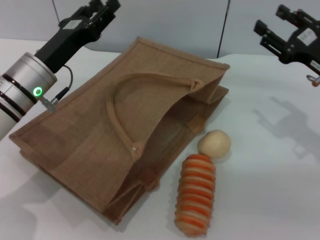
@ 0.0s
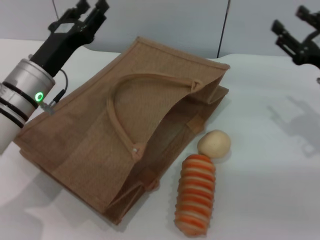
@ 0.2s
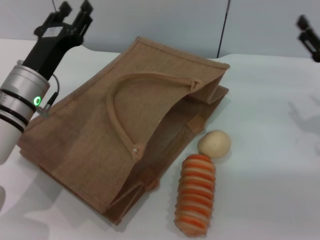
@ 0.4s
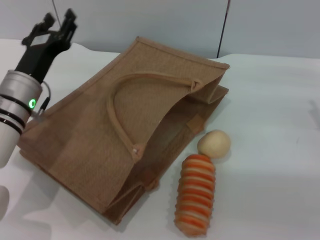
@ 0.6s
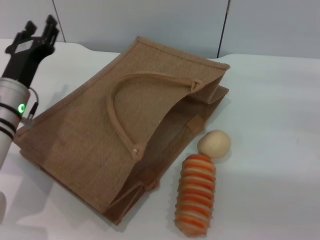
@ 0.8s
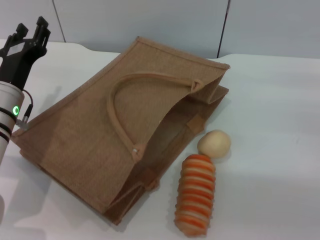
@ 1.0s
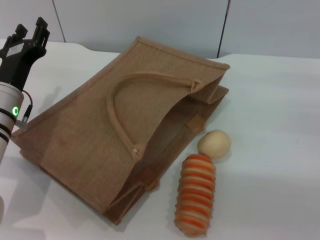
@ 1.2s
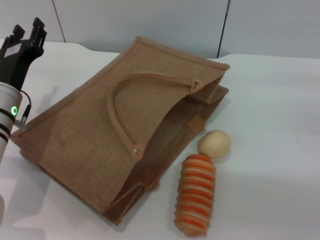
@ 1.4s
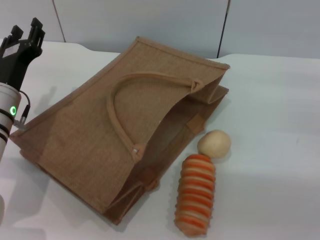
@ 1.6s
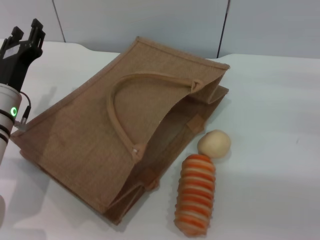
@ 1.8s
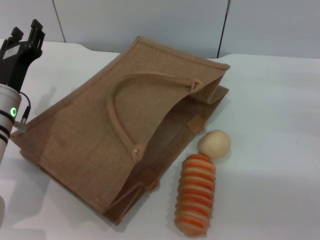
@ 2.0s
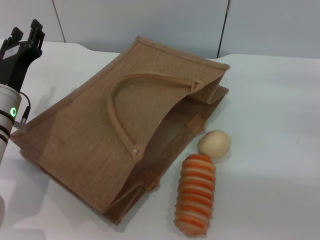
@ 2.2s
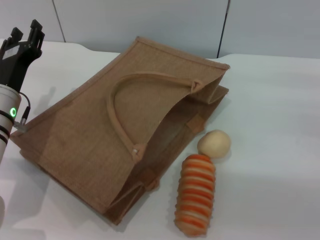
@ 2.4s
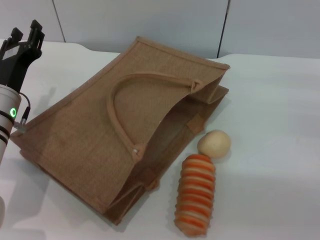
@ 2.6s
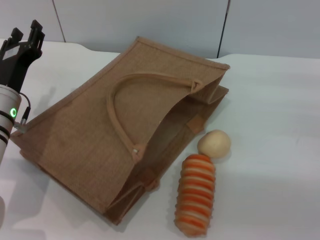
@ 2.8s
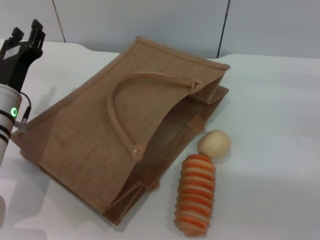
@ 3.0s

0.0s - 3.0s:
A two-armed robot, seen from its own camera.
Task of the whole recording: pick up the orange and peach from the table and place it in the brown handbag.
0.0s - 1.6s: The left gripper shifts by some 5 cm. Meanwhile the right gripper heads to the right, covering approximately 5 cm.
1.6s - 3.0s: Both grippers stay put.

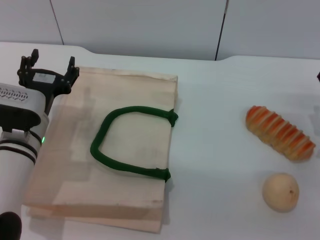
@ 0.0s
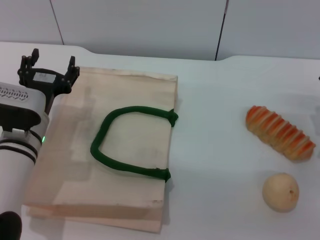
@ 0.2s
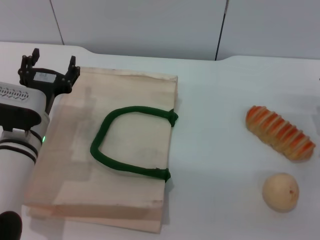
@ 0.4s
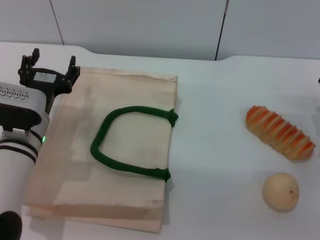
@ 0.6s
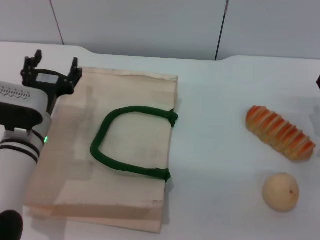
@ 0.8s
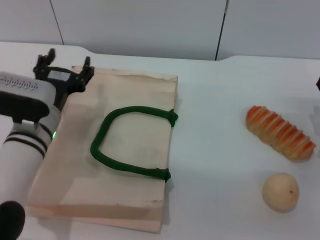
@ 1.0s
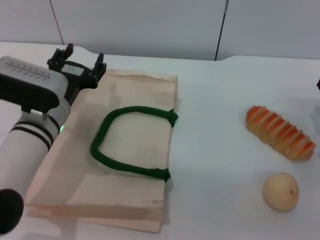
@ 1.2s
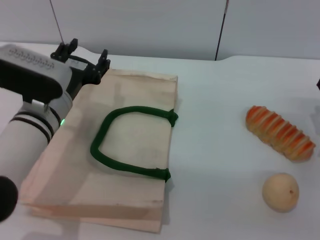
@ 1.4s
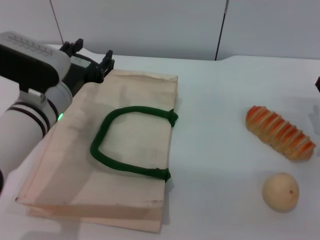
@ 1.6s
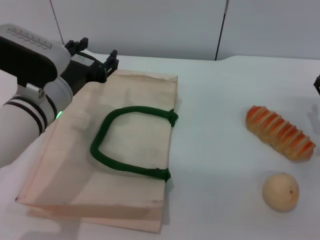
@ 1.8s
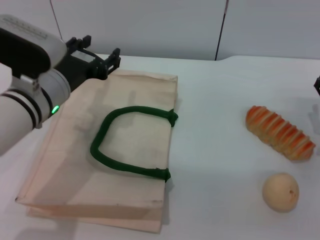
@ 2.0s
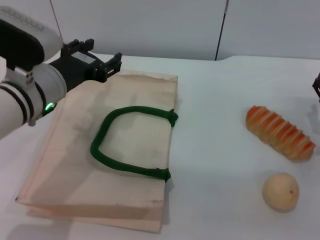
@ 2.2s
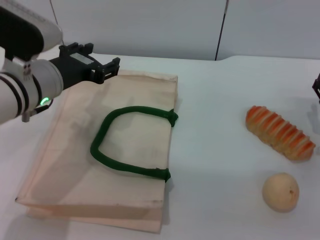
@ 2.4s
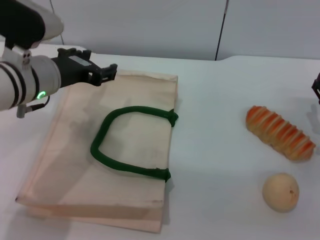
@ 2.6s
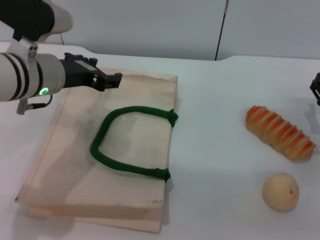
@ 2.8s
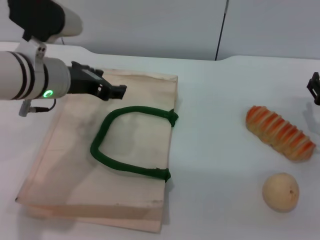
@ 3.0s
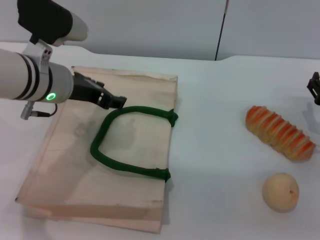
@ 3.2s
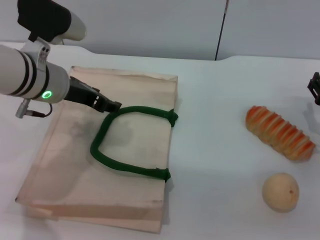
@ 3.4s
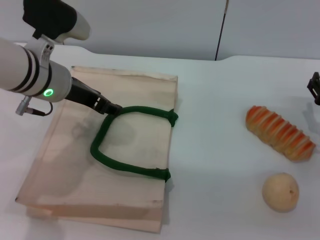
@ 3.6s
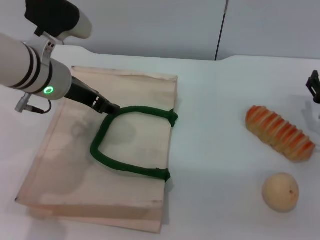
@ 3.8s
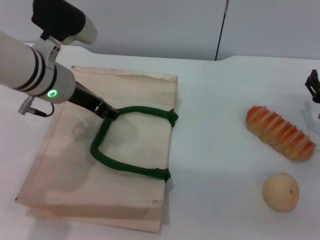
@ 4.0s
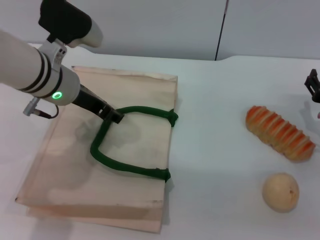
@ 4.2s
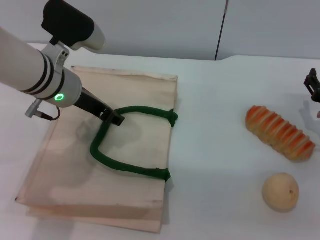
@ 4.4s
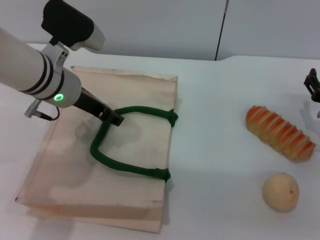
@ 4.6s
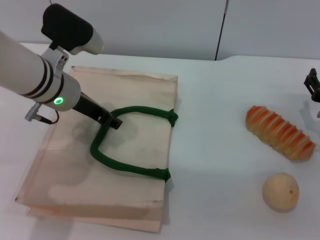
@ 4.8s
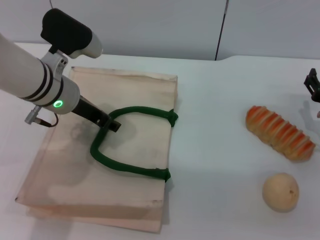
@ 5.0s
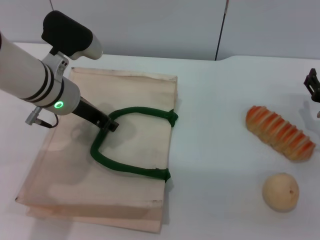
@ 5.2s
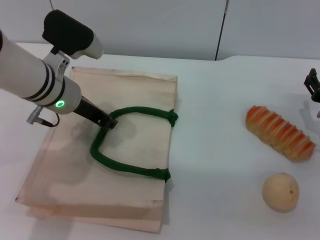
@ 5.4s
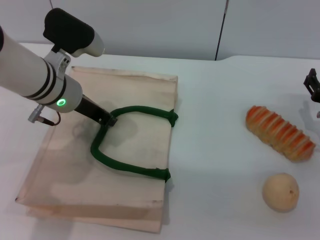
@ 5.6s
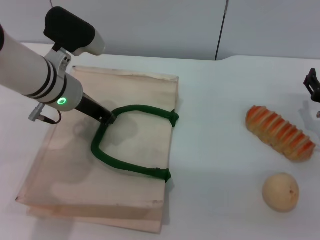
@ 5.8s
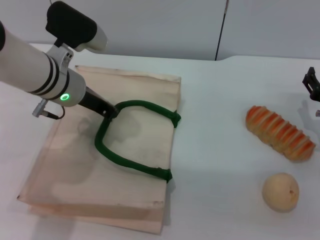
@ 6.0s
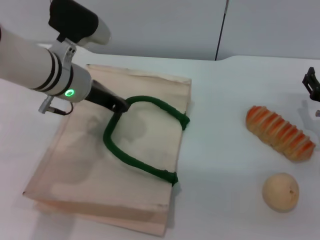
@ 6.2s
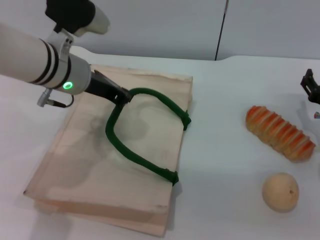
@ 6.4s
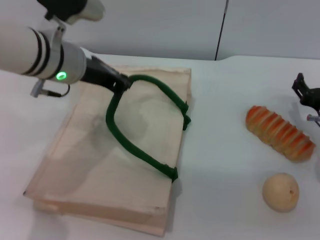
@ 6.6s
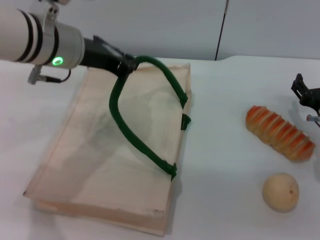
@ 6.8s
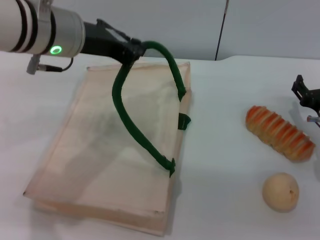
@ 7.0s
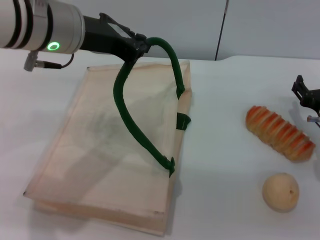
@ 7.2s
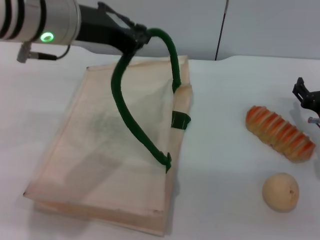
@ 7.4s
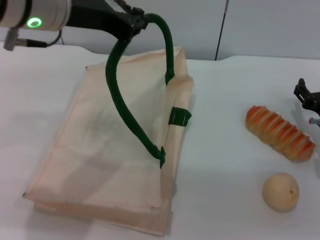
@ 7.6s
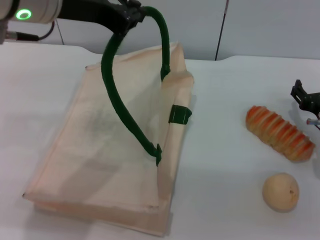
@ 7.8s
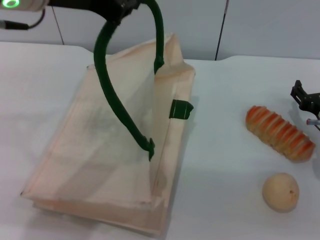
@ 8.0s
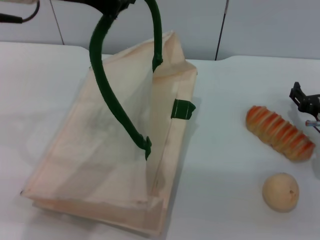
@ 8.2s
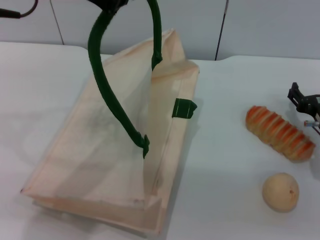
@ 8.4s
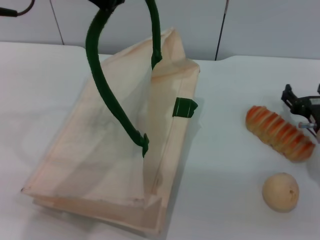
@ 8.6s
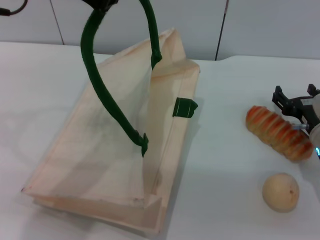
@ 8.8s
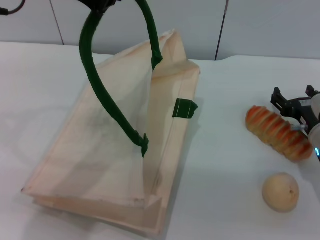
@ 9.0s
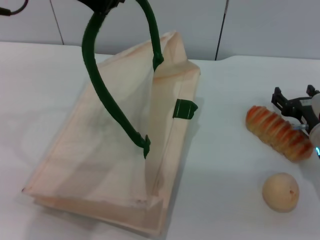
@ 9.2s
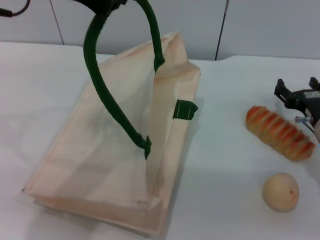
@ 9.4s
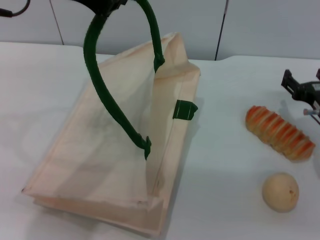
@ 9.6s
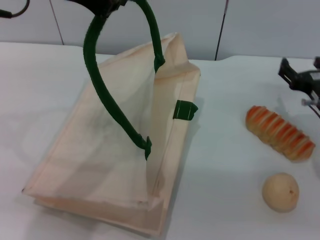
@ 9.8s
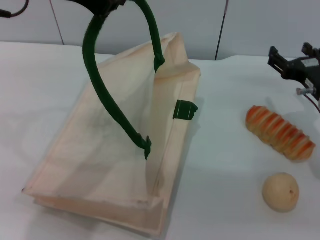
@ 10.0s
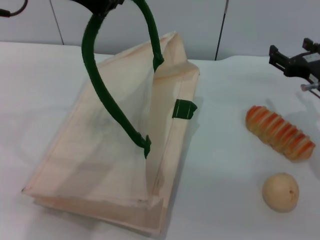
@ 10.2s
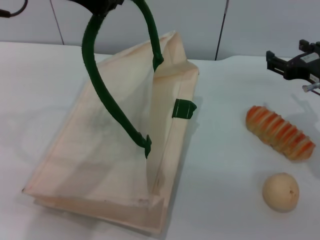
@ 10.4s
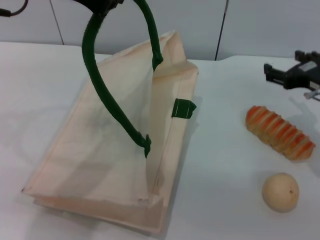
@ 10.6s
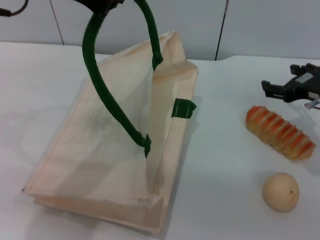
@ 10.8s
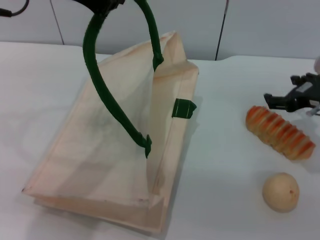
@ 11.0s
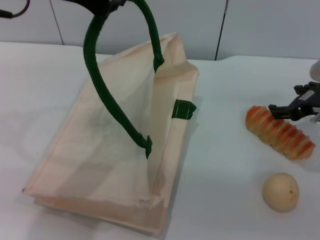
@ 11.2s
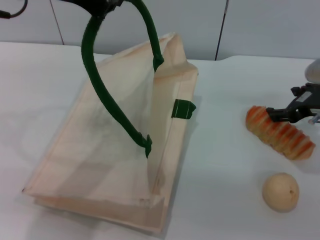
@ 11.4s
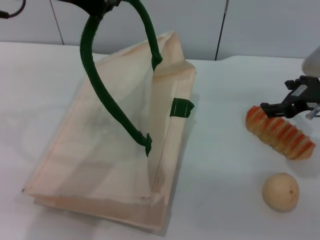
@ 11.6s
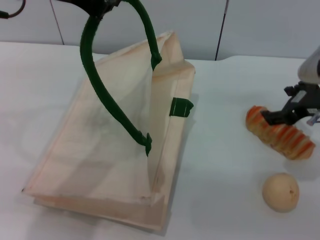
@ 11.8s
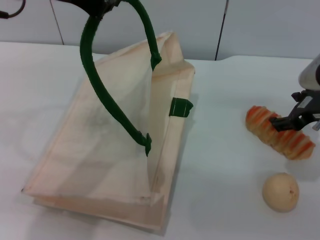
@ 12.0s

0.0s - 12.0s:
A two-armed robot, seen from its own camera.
Task of the whole recording: pick up the bread and egg yolk pastry from the table and place it in the white handbag.
Step, 0.0s - 7.0s: Lift the woven bag with the left gripper to open it.
0.0s - 1.6s: The left gripper is displaced upward by some 5 cm.
1.6s - 3.0s: The left gripper moves upward, approximately 5 cm.
3.0s - 4.4s: There are only small adjustments of the grippers.
4.4s - 6.0s: The left gripper closes up.
6.0s - 7.6s: The left gripper heads upward and backward, covering roughly 15 cm.
7.6s - 9.0s: The left gripper shifts by some 5 cm.
9.0s - 10.4s: The right gripper shifts approximately 10 cm upward.

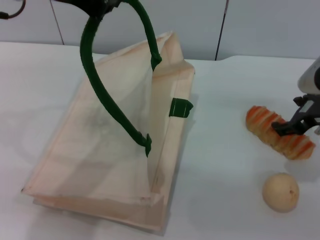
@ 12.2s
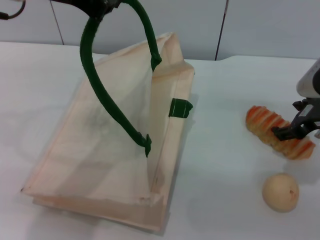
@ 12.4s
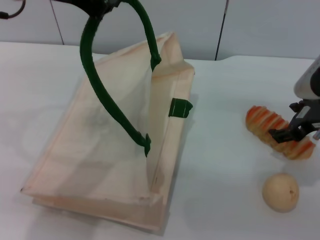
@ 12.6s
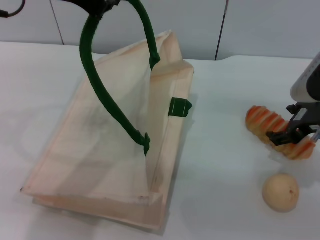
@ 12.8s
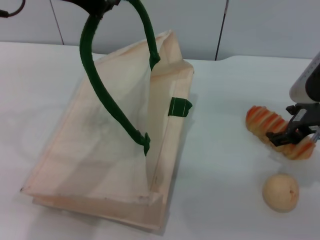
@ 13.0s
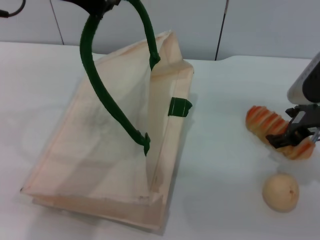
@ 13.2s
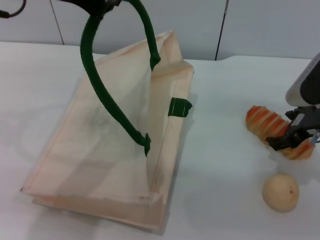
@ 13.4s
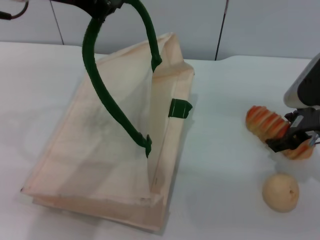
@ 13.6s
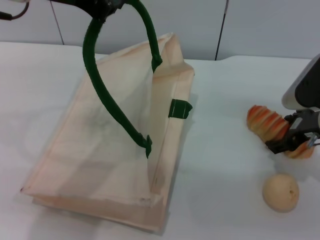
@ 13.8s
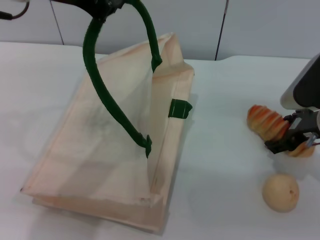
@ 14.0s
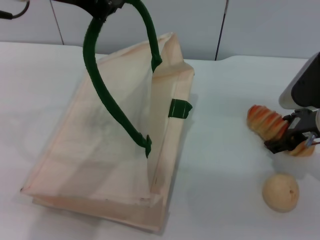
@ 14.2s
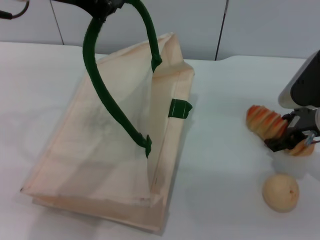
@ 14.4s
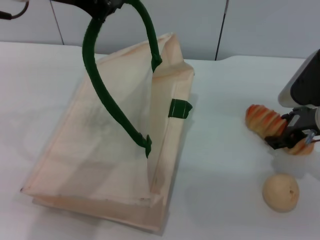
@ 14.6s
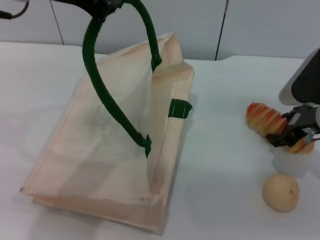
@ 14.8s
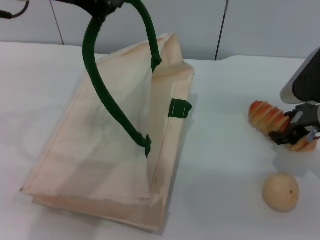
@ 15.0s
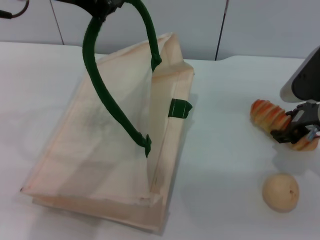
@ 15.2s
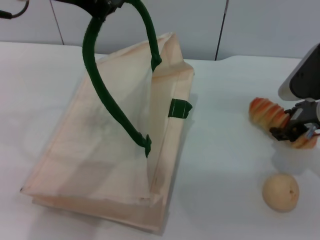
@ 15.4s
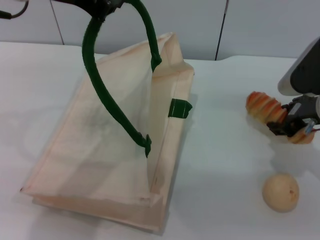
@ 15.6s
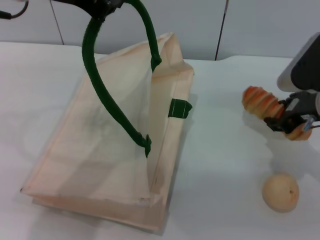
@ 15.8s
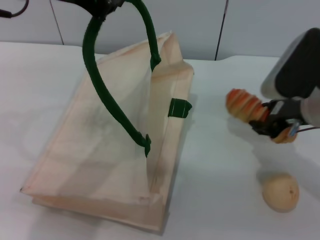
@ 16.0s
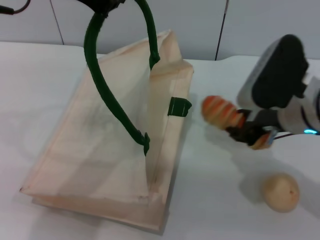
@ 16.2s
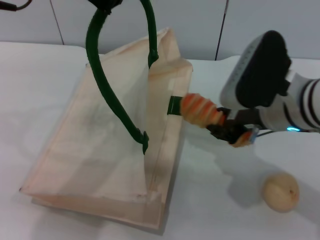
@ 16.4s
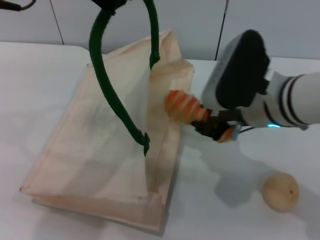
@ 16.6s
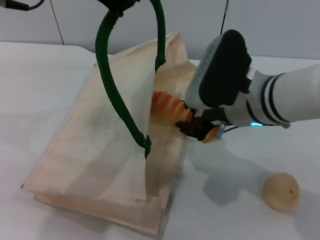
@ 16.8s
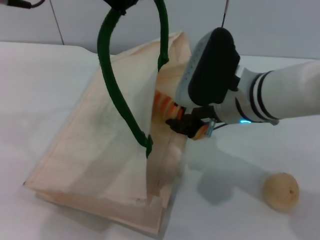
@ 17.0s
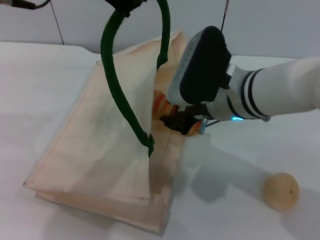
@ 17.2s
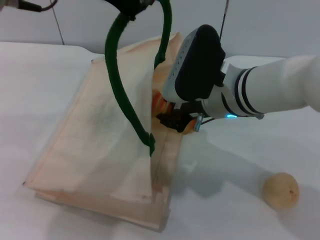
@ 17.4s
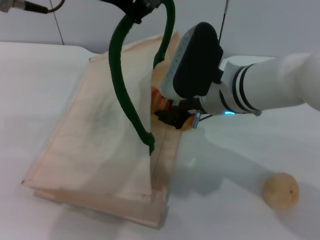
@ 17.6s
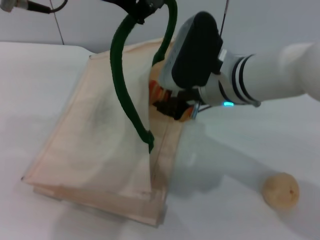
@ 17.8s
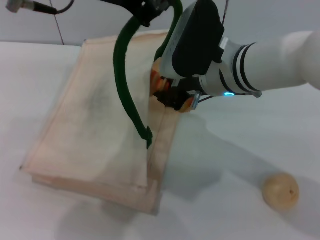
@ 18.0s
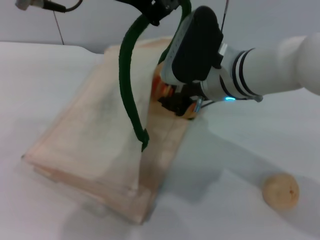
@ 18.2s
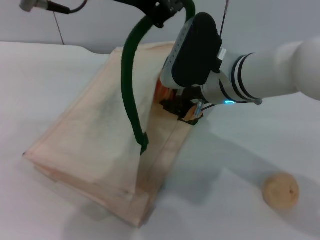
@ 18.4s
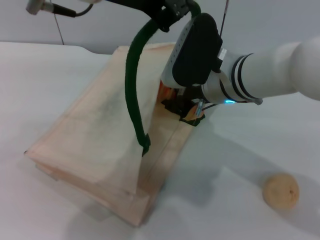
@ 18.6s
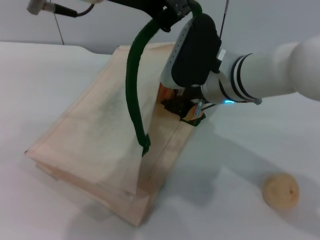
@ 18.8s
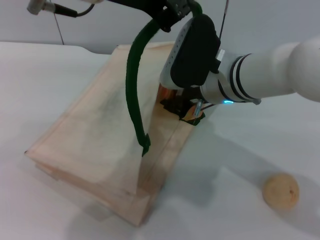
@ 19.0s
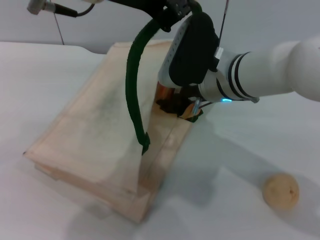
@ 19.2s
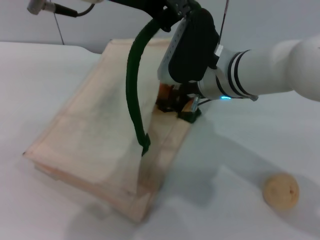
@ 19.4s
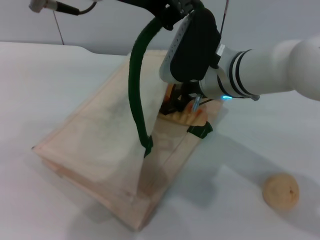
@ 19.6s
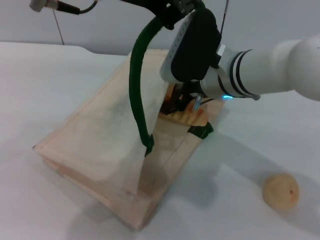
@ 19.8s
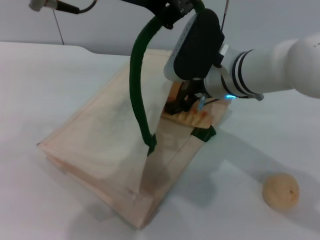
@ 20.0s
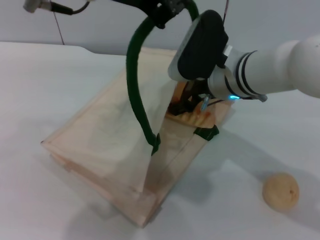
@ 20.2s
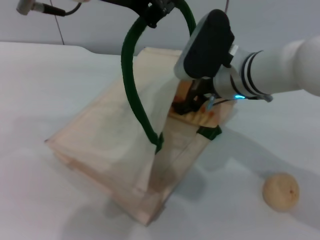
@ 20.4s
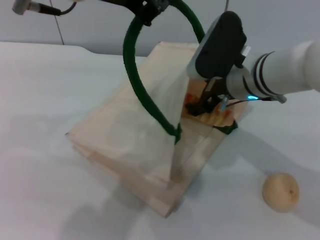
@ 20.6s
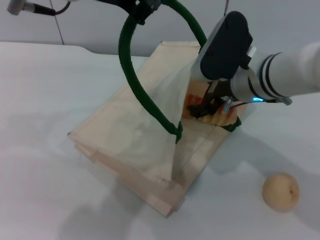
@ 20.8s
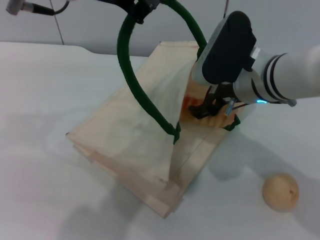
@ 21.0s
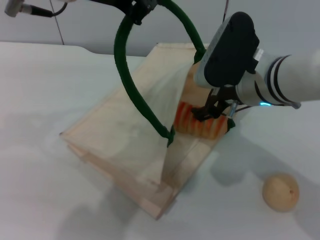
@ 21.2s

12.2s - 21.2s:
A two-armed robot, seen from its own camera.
Task of the whole recording: pick up the bread and egg yolk pastry from the table and place it in the white handbag.
Step, 12.2s - 16.0s: Pick up the bread with the right gripper.
12.2s - 13.8s: The grippers make only small movements.
13.8s - 15.2s: The right gripper closes up.
15.2s - 16.6s: The right gripper heads to the left, covering roughly 10 cm, and closes.
16.6s - 18.2s: The right gripper changes place by some 5 cm.
18.2s - 19.8s: The right gripper opens its fingers.
